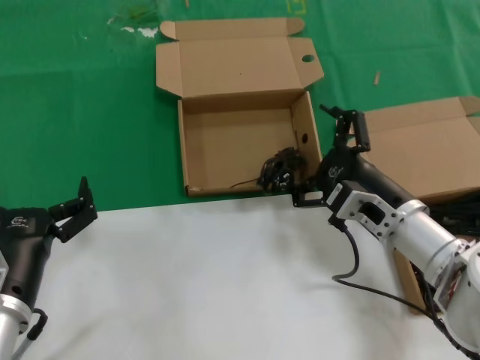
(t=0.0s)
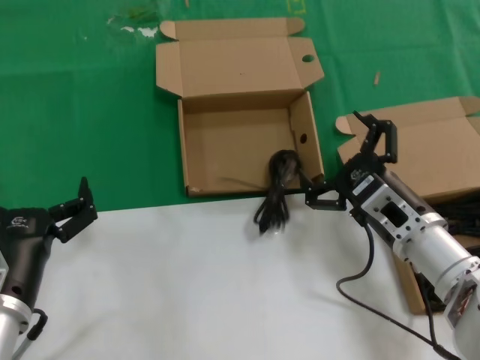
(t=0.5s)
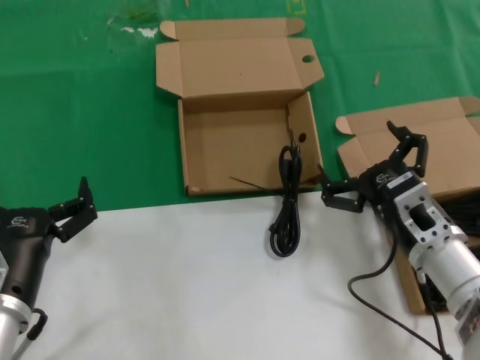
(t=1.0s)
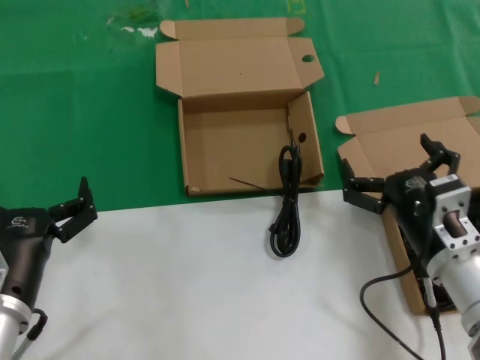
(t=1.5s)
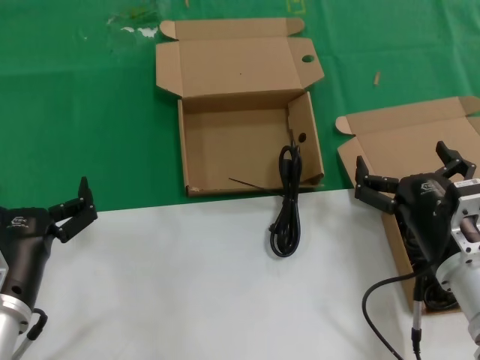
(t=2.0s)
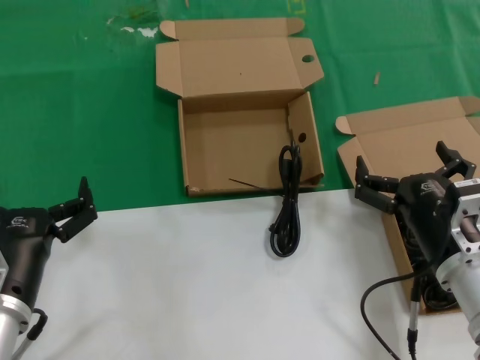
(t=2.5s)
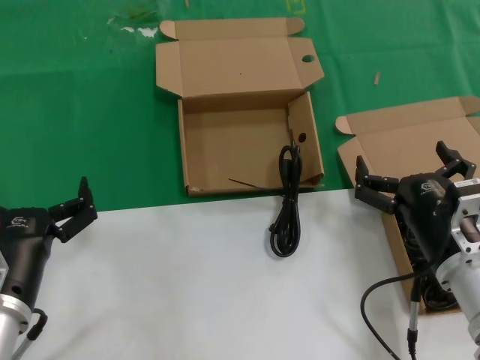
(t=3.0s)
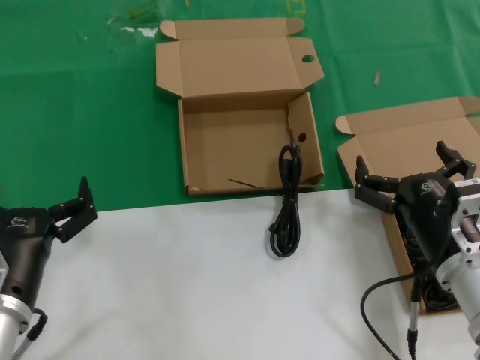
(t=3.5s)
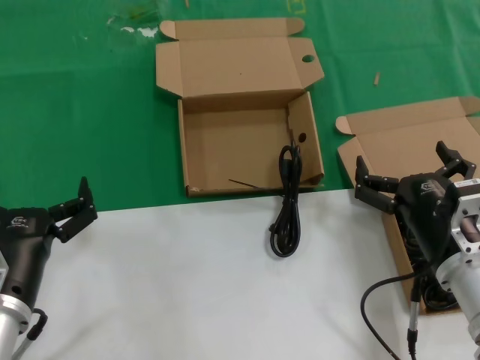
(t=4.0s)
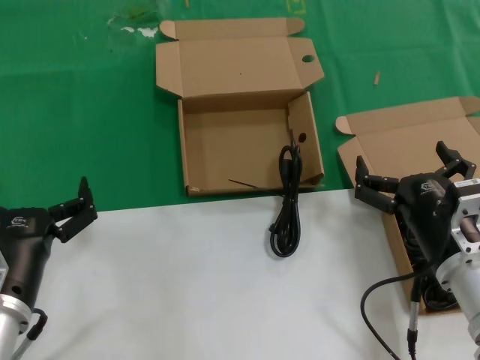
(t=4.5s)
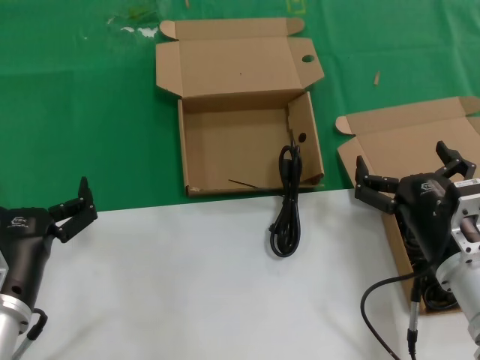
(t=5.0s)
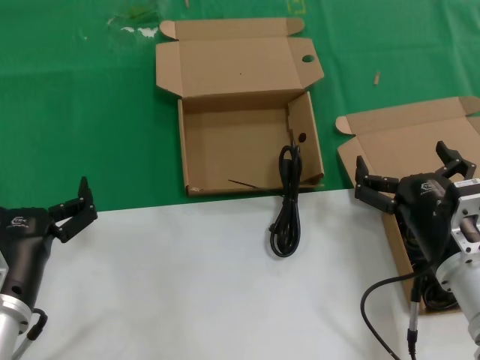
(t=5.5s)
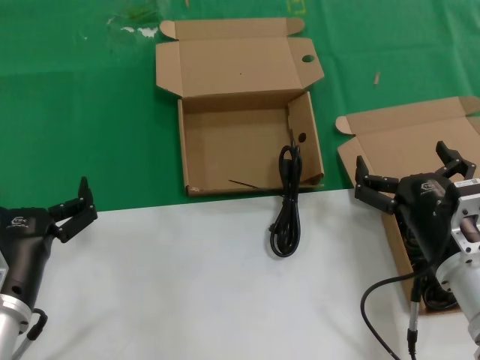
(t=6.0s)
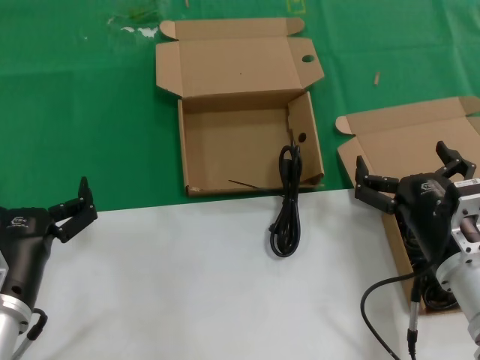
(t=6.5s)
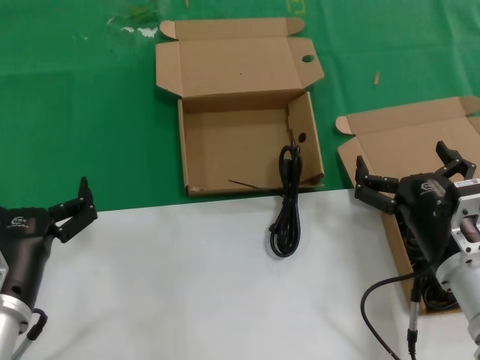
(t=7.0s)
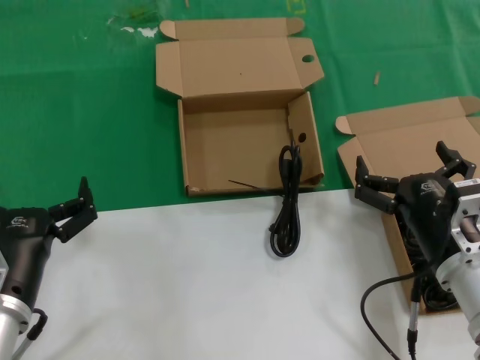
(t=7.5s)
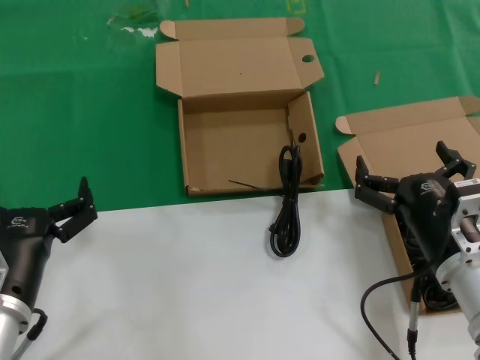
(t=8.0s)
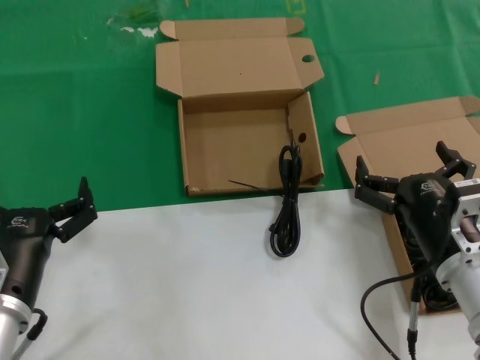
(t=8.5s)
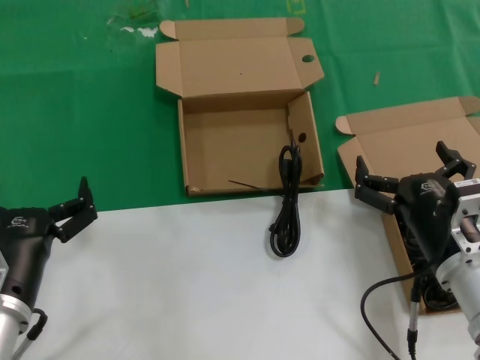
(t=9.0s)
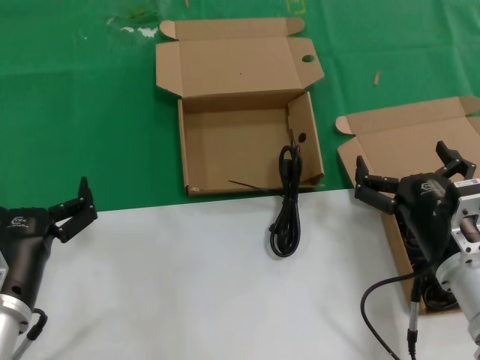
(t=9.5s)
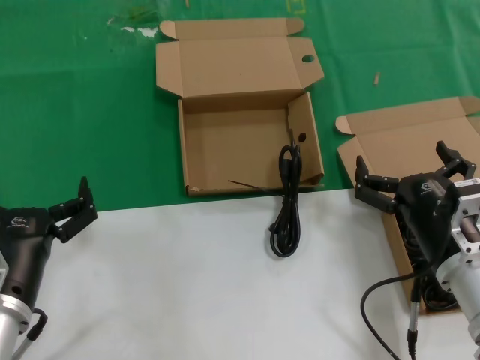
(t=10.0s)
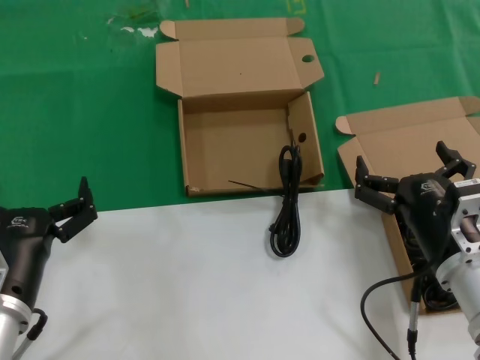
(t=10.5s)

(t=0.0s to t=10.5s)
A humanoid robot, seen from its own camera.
Task of the whole recording: take the parts from the box containing them and put them into an empty box.
t=0.0s - t=2.0s: The right hand shifts roughly 10 cm backward.
t=2.0s - t=10.5s: The two hands keep their place.

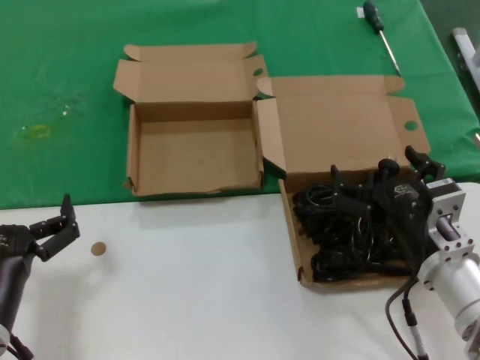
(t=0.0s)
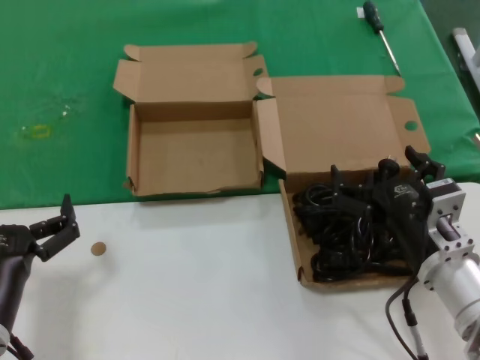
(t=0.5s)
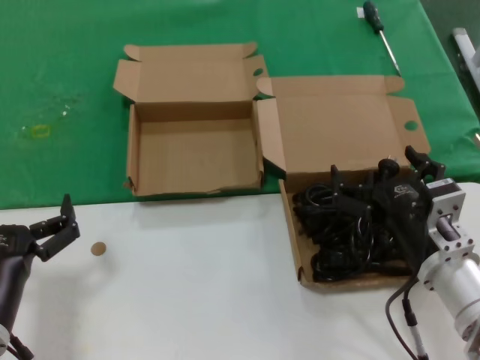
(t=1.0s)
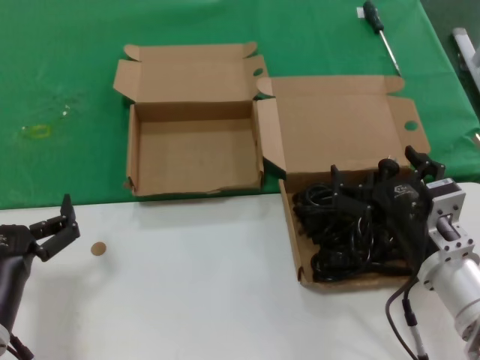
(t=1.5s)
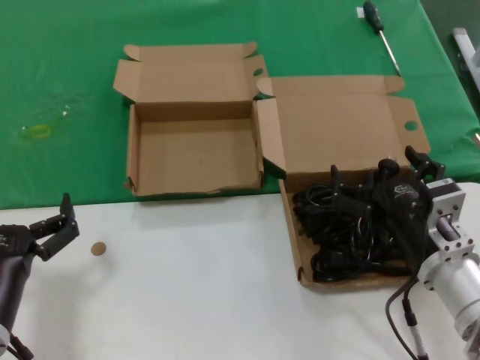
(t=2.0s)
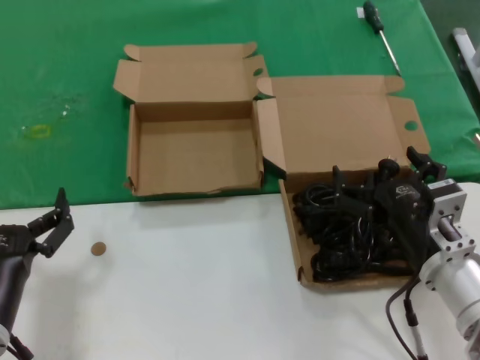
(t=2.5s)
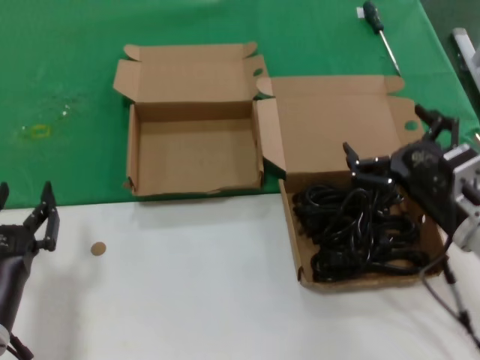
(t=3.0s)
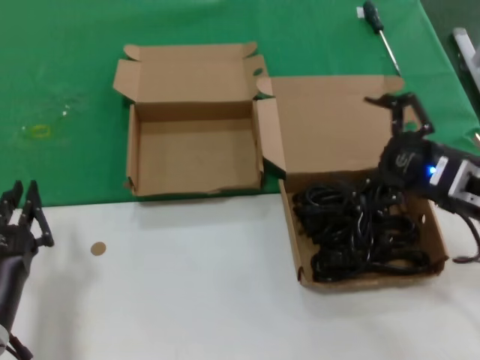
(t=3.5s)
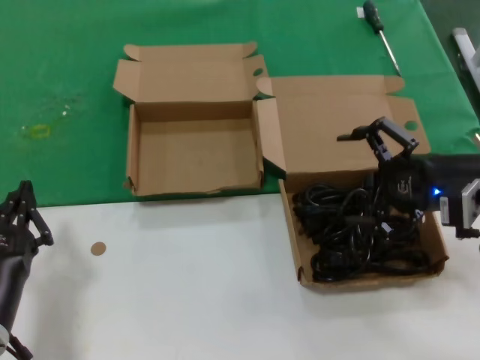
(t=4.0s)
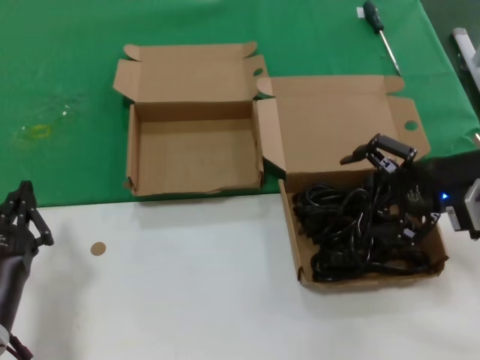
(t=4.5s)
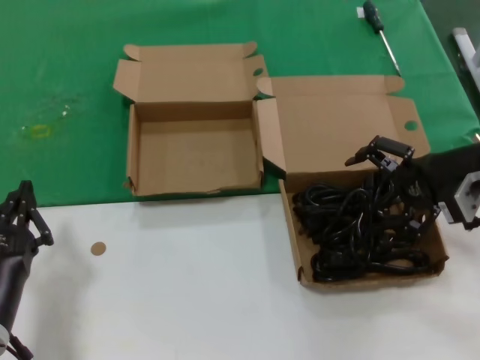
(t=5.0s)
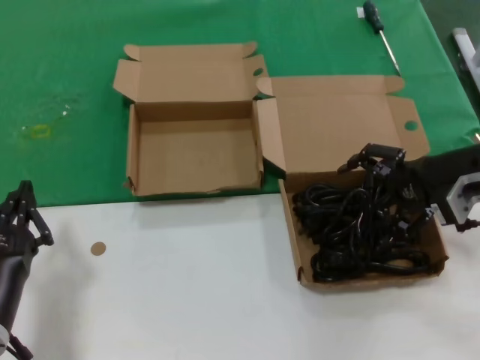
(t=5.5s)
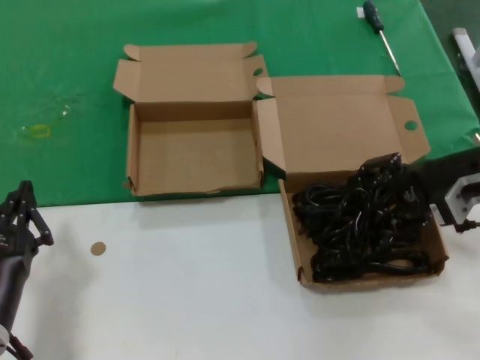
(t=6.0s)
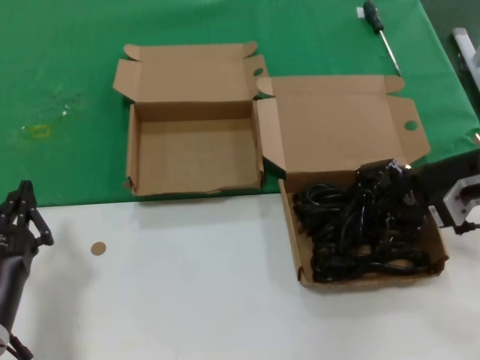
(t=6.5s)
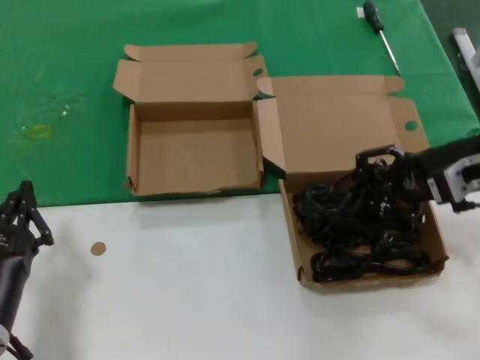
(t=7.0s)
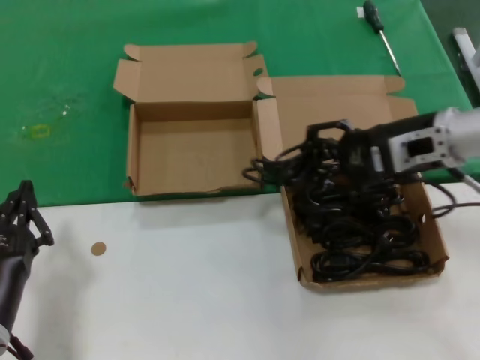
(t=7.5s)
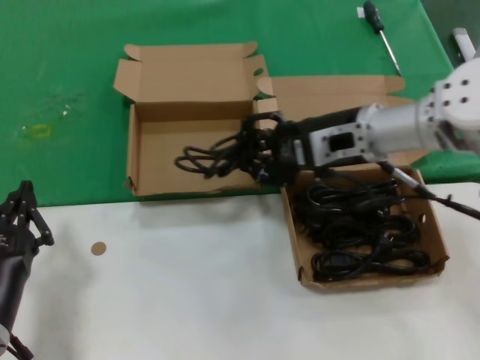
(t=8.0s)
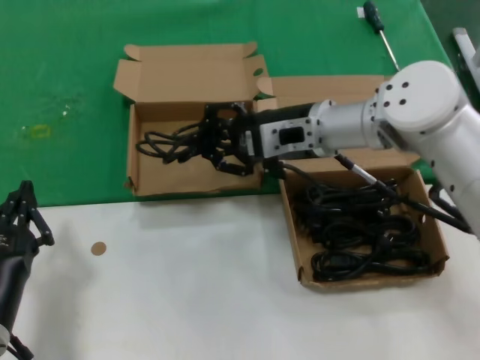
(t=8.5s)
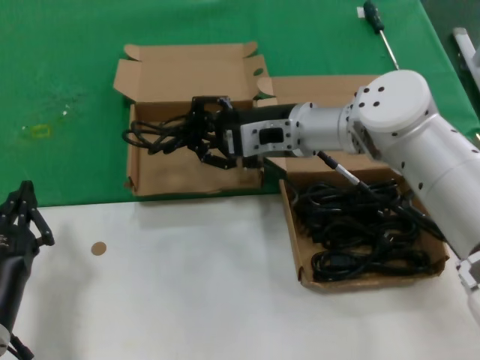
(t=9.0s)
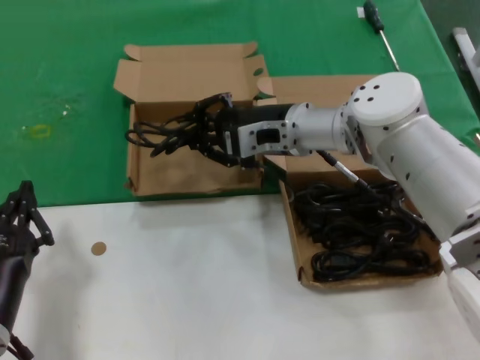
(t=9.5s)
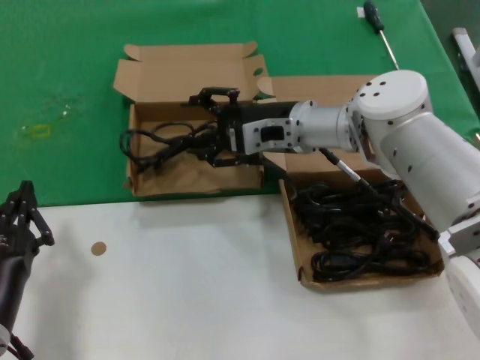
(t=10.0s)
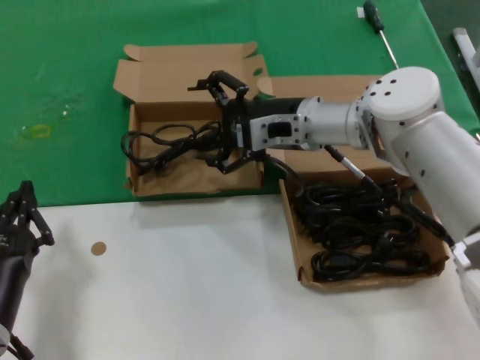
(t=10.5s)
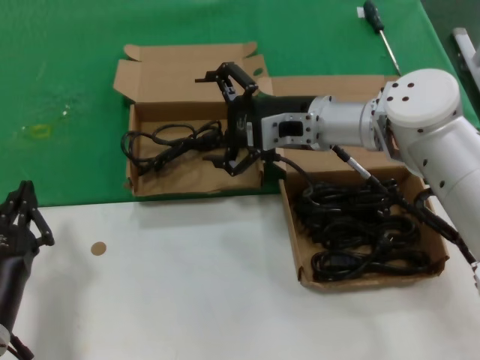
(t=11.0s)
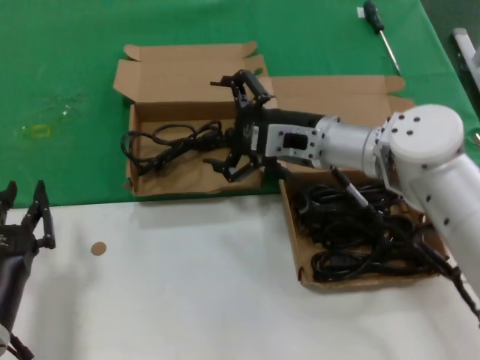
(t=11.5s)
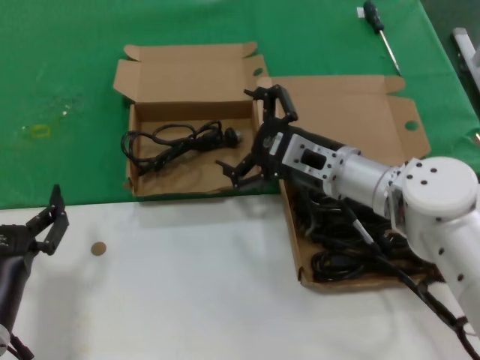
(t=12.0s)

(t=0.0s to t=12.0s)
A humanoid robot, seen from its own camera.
Task of the whole recording: take the parts from the box containing them and put them into an empty box.
Step, t=0.0s - t=6.5s: Grasp the data cable.
Step, t=7.0s - t=10.0s: Place the data cable in the another box.
t=0.0s - t=2.0s: Both hands stay put.
t=2.0s - t=4.0s: The right hand goes roughly 20 cm upward, to the right and forward.
t=4.0s - t=6.0s: The right hand heads forward, covering roughly 5 cm.
t=6.0s - t=8.0s: The right hand is displaced to the left by about 15 cm.
t=8.0s - t=10.0s: The right hand travels to the left and forward by approximately 10 cm.
t=10.0s - t=12.0s: The right hand goes some 10 cm backward and downward.

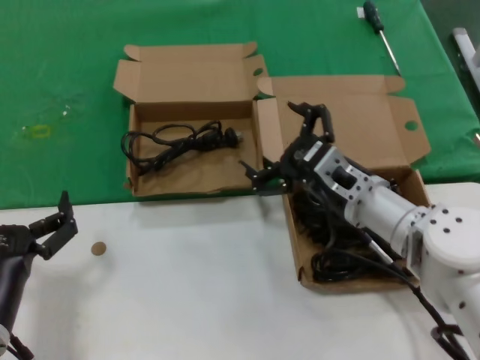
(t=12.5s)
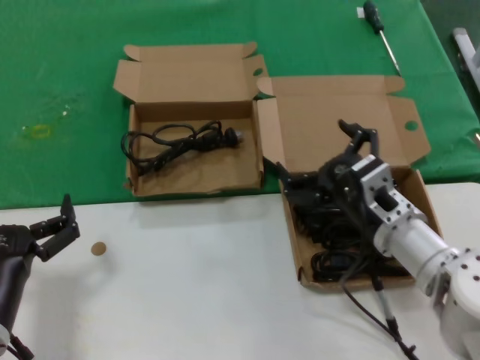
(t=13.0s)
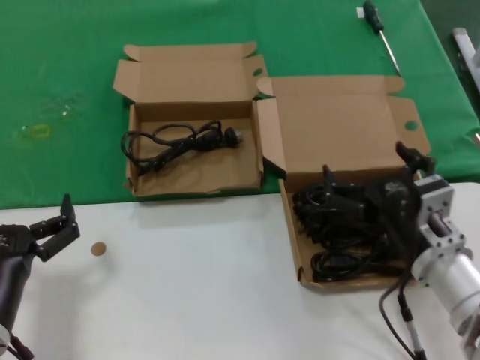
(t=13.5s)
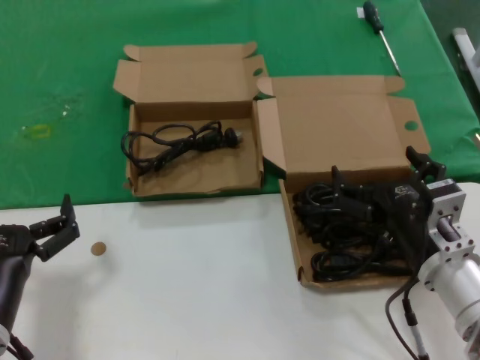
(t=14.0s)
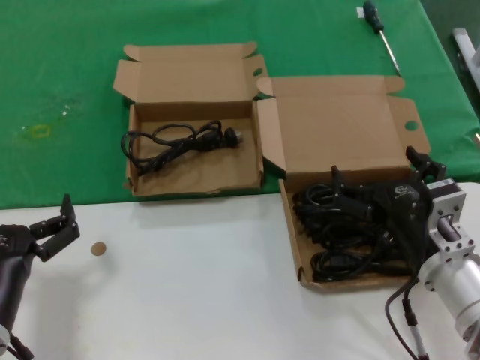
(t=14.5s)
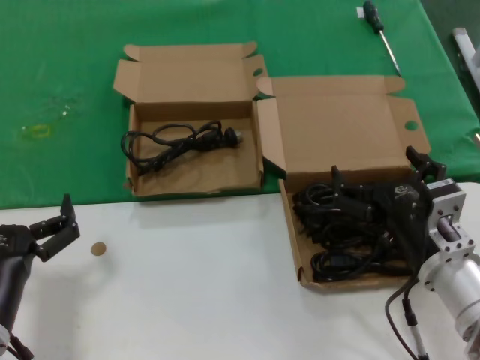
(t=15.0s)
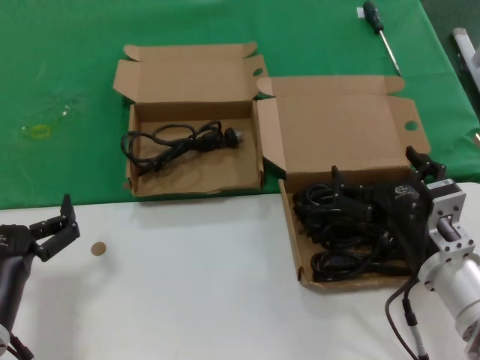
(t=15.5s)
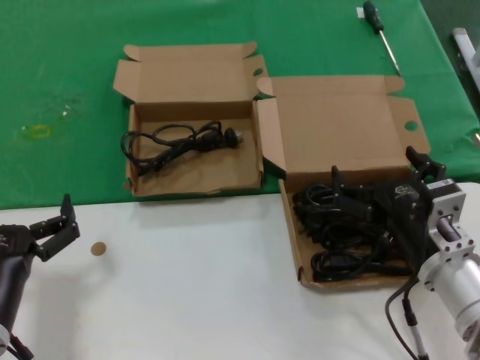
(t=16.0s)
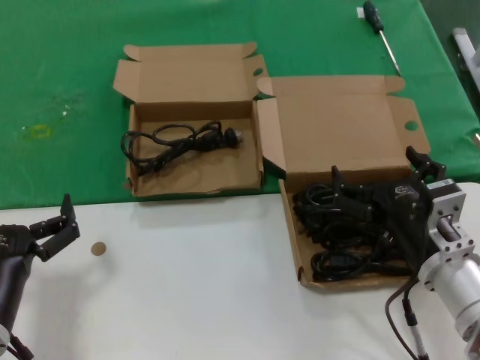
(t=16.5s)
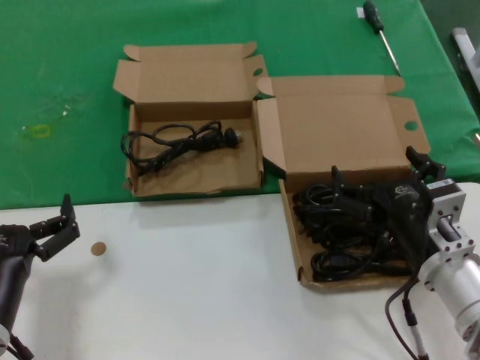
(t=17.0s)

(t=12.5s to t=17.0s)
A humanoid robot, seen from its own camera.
Task of the whole recording: take the parts from the box containing them and put them into an empty box.
t=12.5s - t=14.5s: The right hand travels backward by roughly 10 cm.
t=14.5s - t=17.0s: Both hands stay put.
